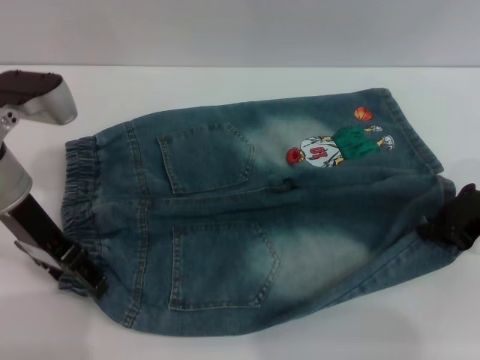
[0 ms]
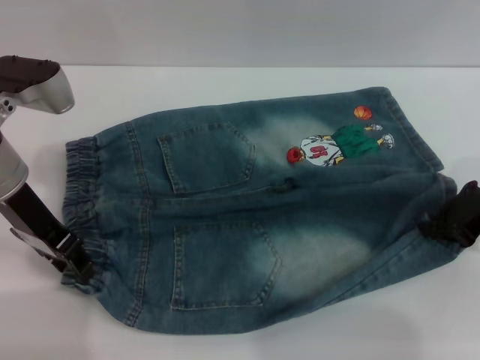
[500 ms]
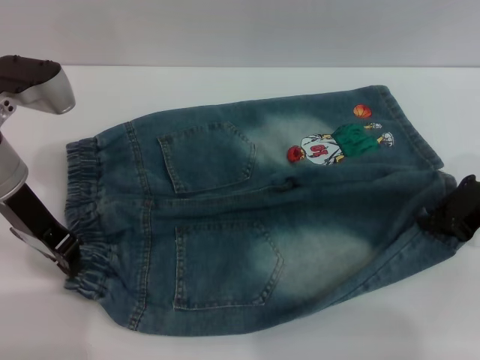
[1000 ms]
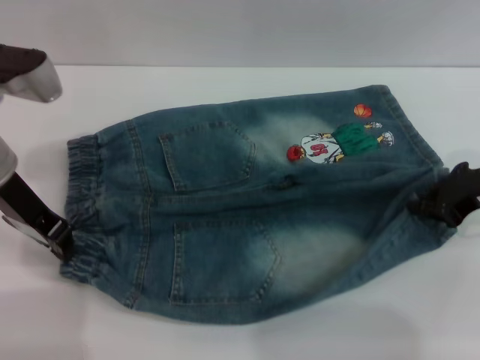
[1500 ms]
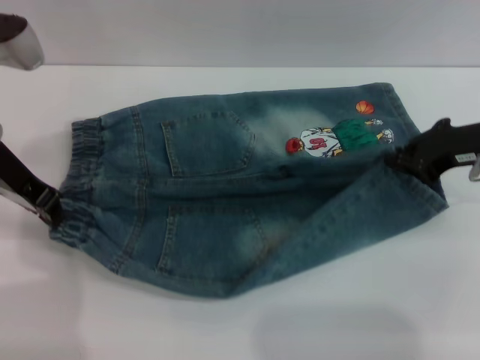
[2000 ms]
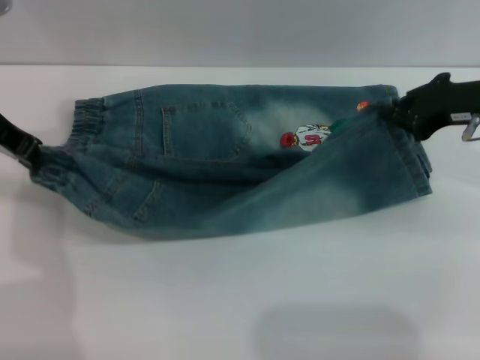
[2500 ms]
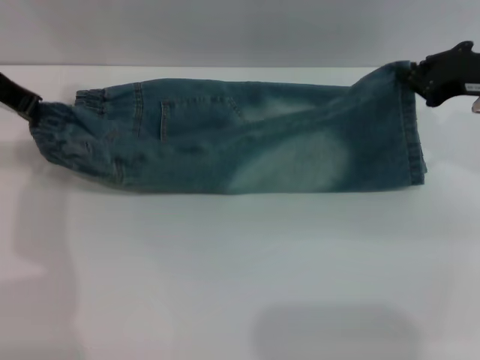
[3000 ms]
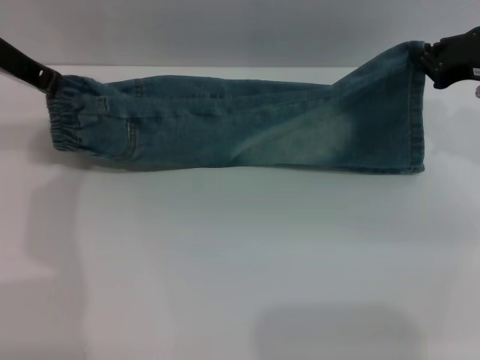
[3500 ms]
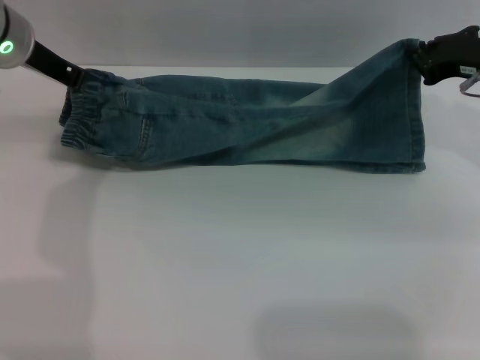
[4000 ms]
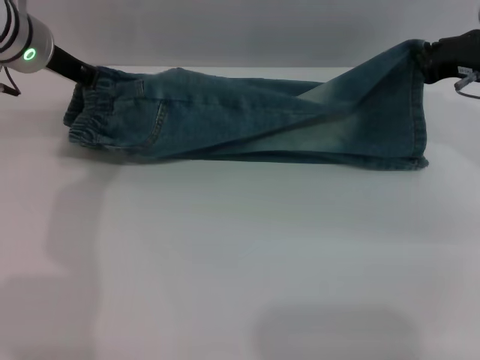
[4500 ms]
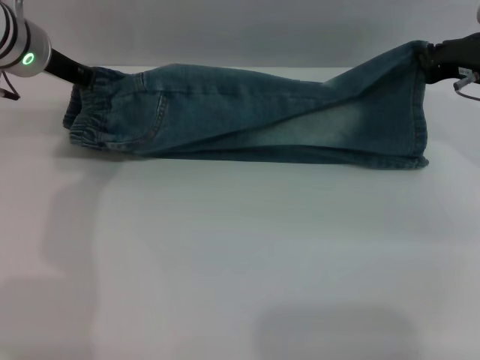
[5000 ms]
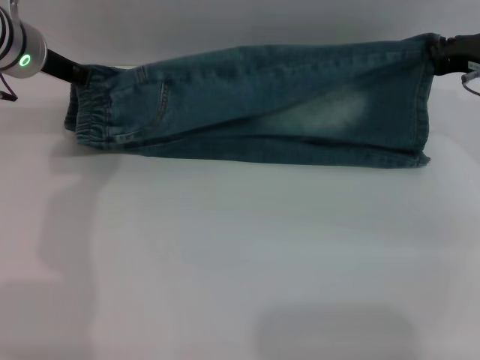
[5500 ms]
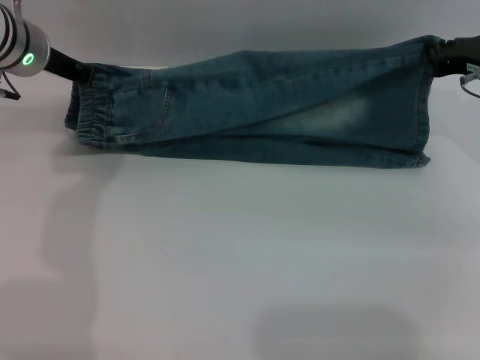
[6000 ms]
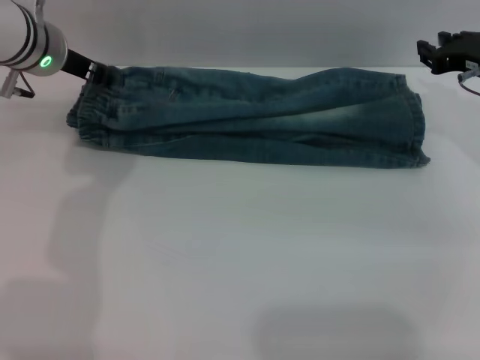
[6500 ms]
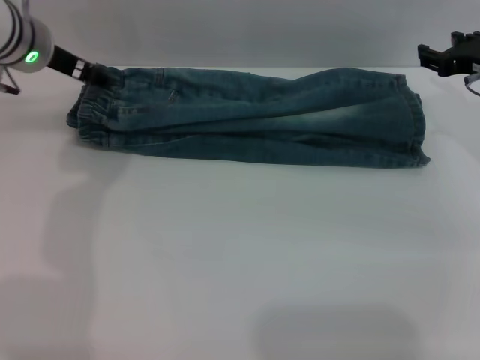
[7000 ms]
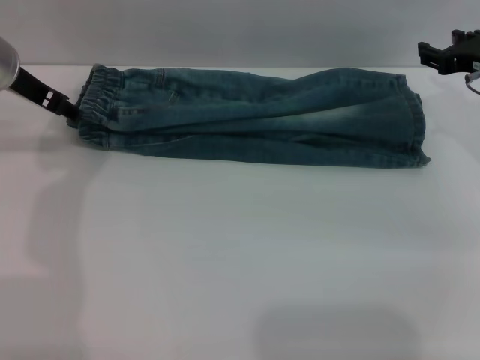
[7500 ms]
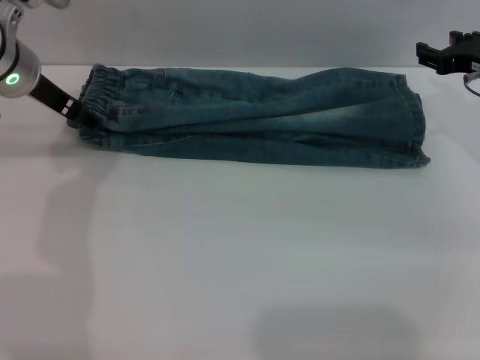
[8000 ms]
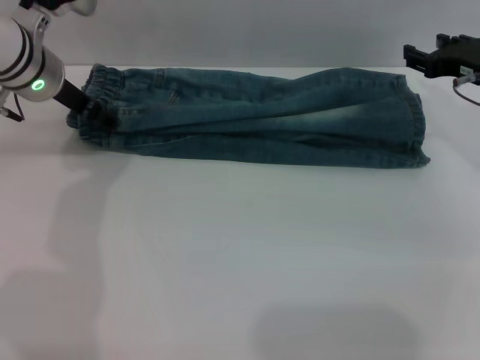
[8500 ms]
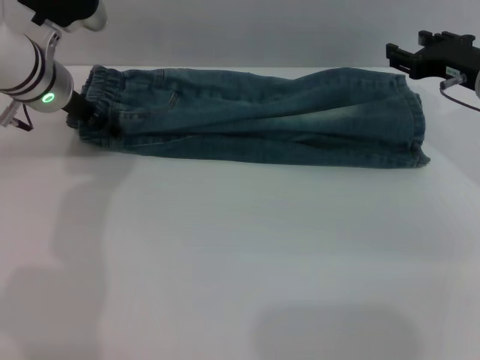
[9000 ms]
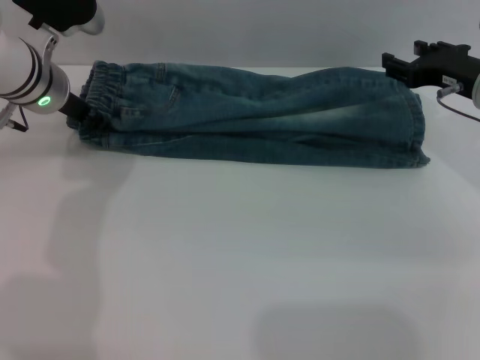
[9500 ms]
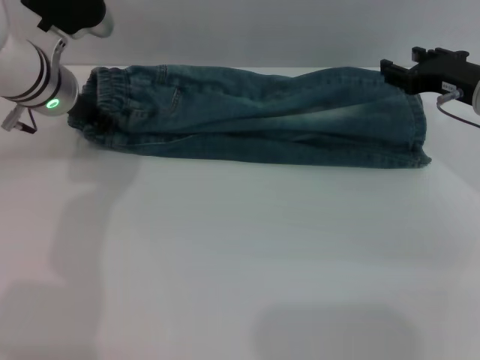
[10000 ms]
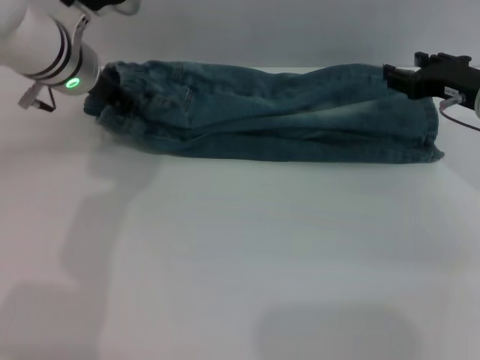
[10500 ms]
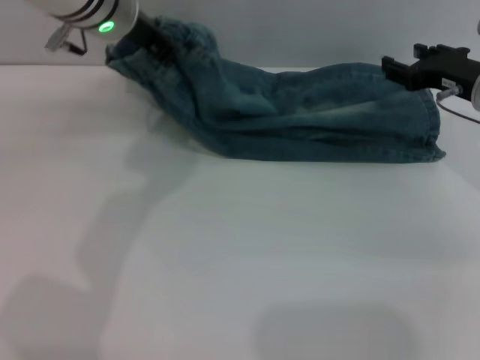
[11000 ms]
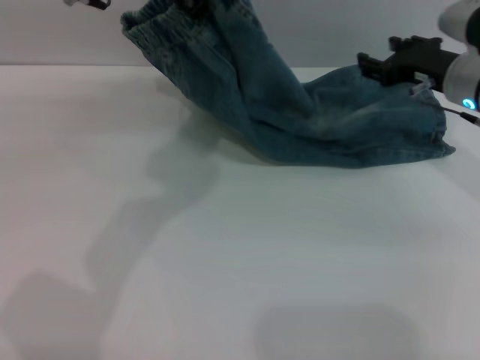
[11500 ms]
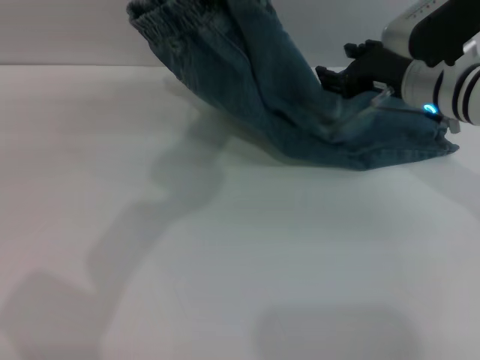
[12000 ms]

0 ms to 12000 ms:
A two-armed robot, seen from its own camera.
Step, 0 ms to 6500 ms: Fold the bottom of the pants upward with both grippers.
0 ms to 2000 ms: The left gripper closes.
2000 ms to 4000 ms: The left gripper shifts roughly 5 cm forward.
4000 ms to 6000 ms: The grippers stay close to where they were, moving slightly.
6000 ms to 8000 ms: The left gripper opens its fingers. The right gripper opens its fingers.
8000 ms to 10000 ms: The left gripper changes place by approximately 5 cm, and closes up.
10000 ms to 12000 ms: The left gripper travels upward and to the right by some 20 cm. Meanwhile the right gripper is displaced to the left by roughly 5 cm.

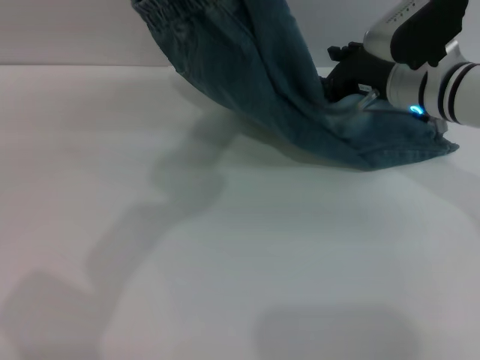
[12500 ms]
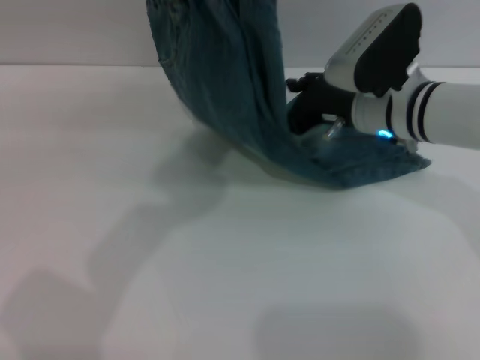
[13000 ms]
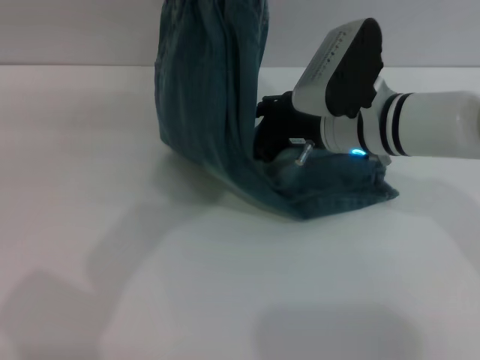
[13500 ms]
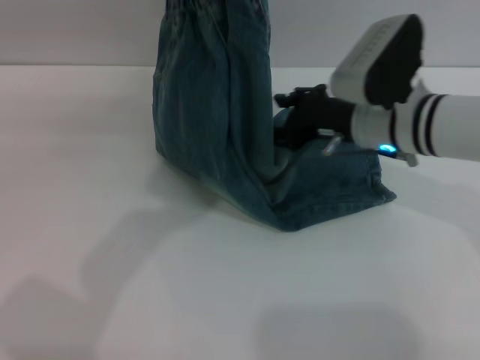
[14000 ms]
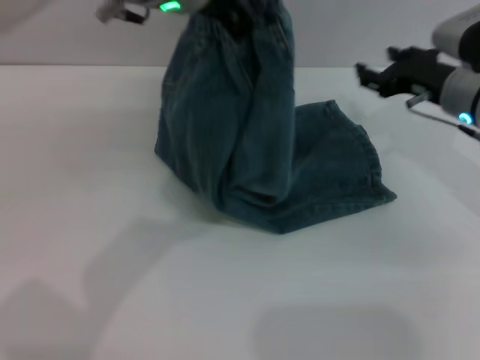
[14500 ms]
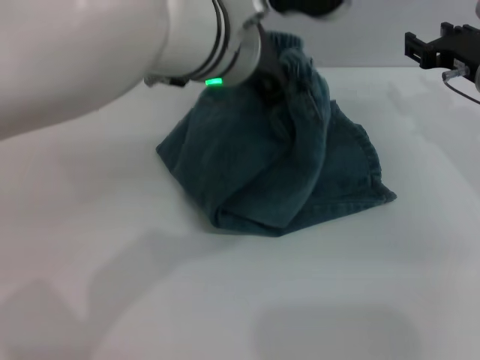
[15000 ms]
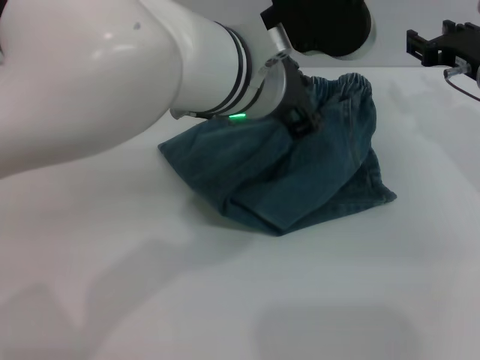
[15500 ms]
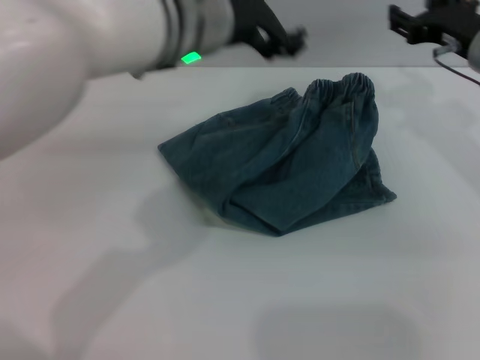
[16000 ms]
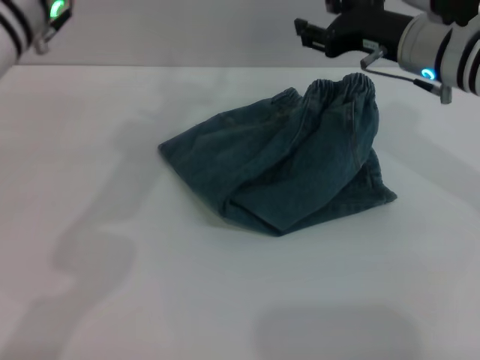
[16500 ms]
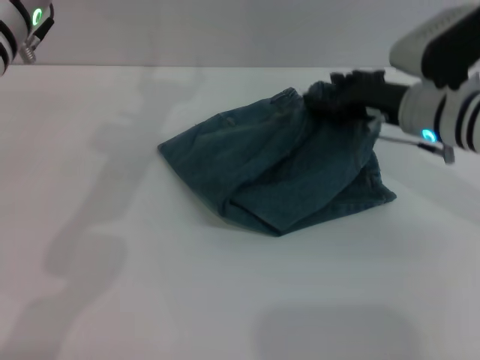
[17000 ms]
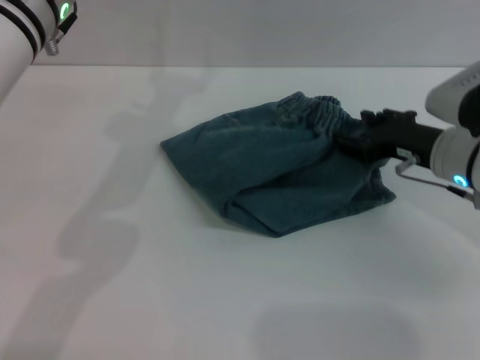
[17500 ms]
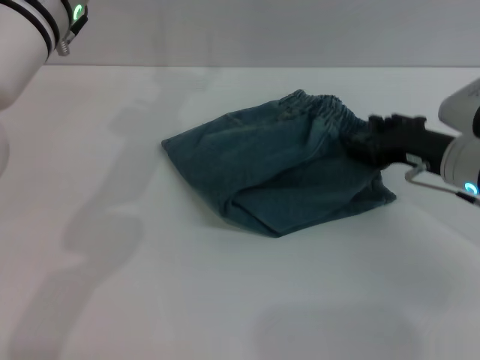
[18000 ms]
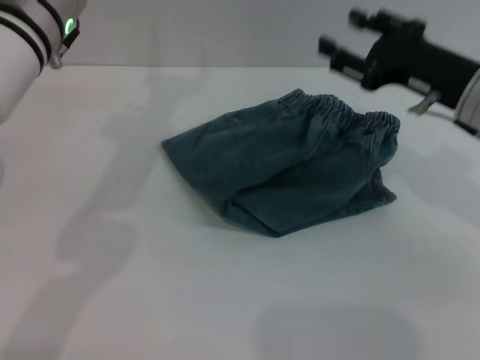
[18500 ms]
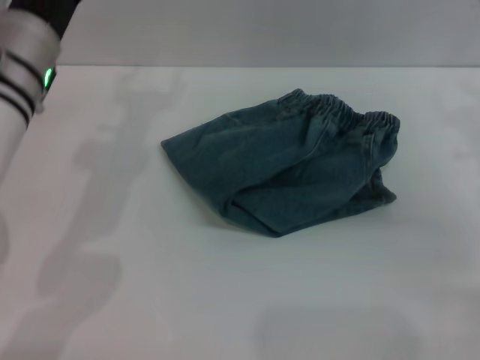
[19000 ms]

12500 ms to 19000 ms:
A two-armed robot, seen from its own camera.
Step, 12500 ms to 15500 ms: Fold the pants from left to right with the left gripper.
12500 ms to 14500 ms: The right gripper goes roughly 5 cm to the right.
14500 ms to 17000 ms: The left gripper is displaced to the left and downward by about 15 cm, and opens its fingers.
17000 ms to 19000 ms: The left gripper is displaced downward by approximately 5 cm; the right gripper is displaced to the right and backward by about 10 cm.
